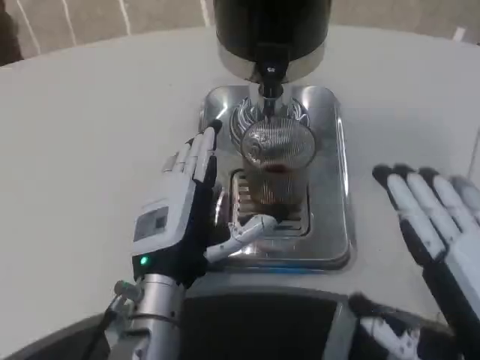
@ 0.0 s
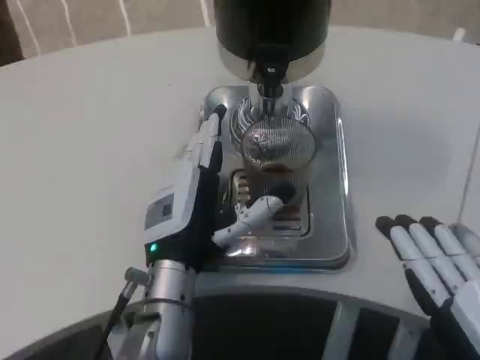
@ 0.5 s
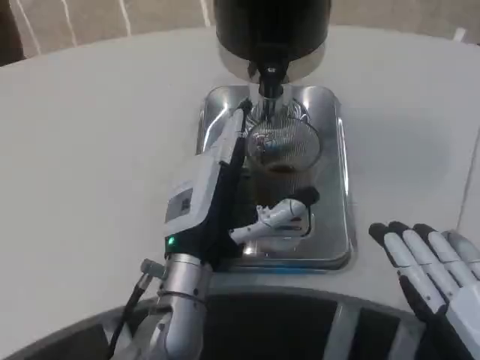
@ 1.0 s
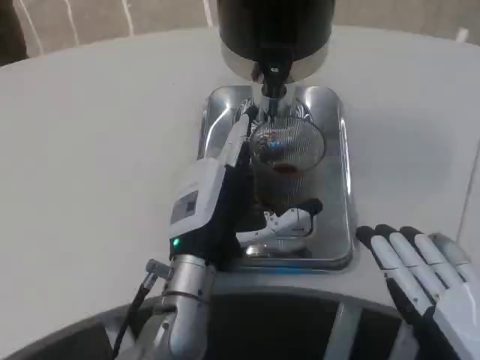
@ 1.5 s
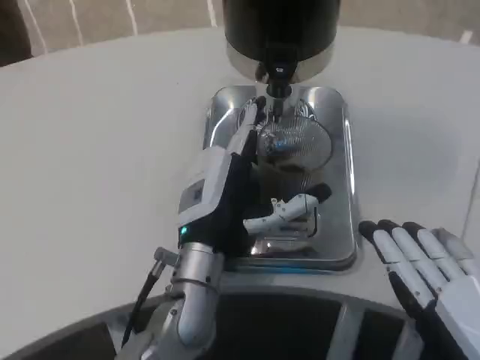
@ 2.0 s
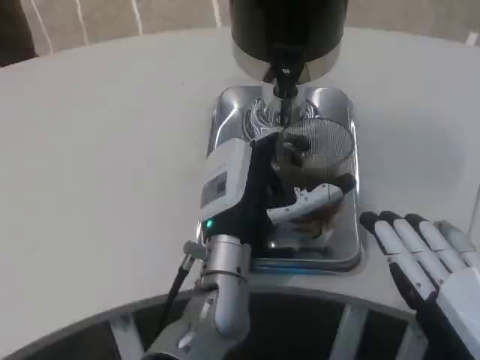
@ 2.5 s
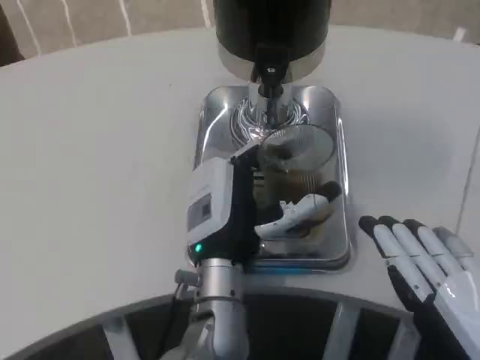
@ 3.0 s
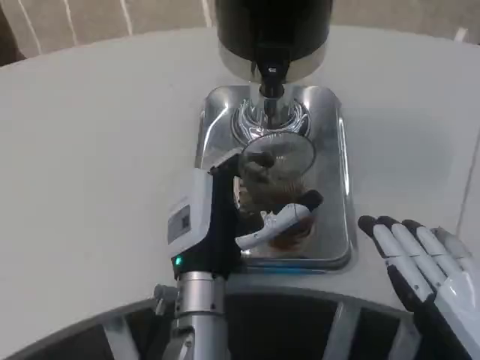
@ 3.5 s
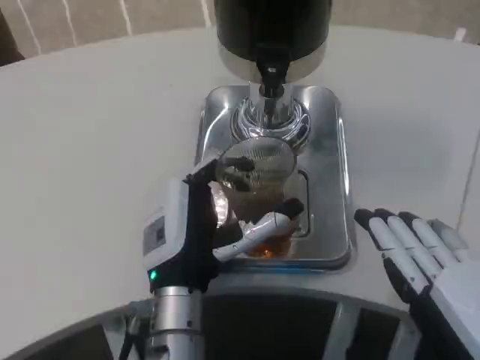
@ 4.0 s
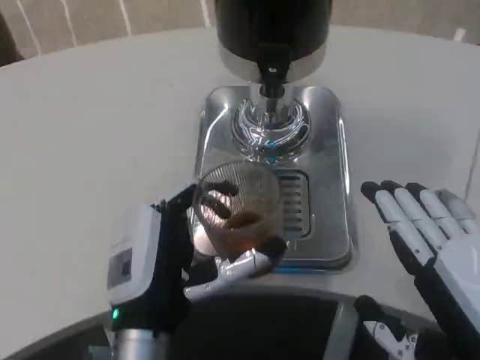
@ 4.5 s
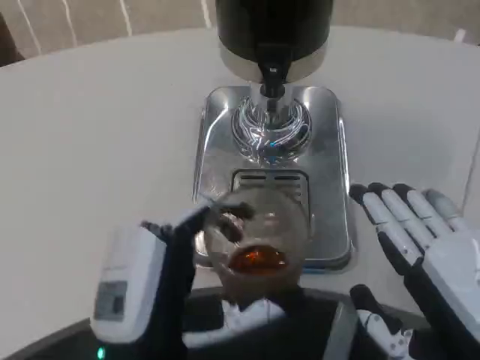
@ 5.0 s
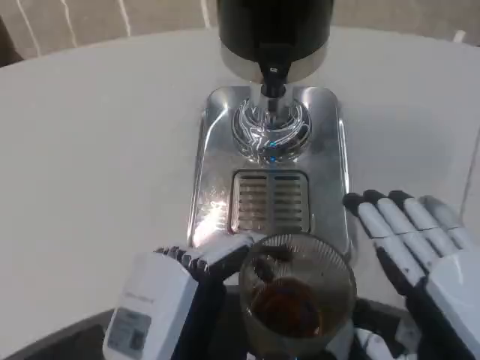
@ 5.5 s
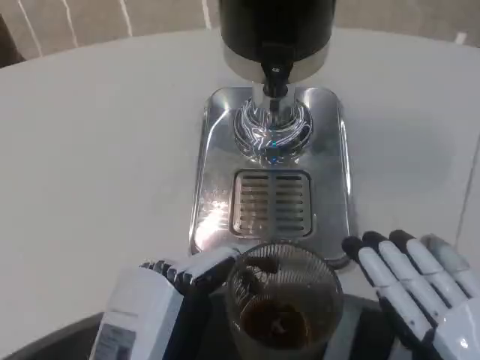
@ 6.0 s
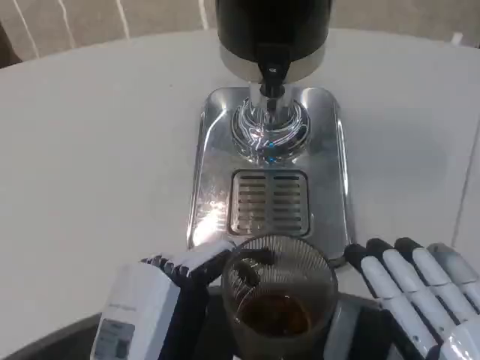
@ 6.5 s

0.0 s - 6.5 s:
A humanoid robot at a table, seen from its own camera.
Task of the whole recording: Grasp the cup under the faucet to collect the drink, then remove the cup.
2.0 s - 4.5 s: The left hand shifts roughly 10 cm backward.
4.5 s - 6.5 s: Both hands move backward, approximately 5 cm.

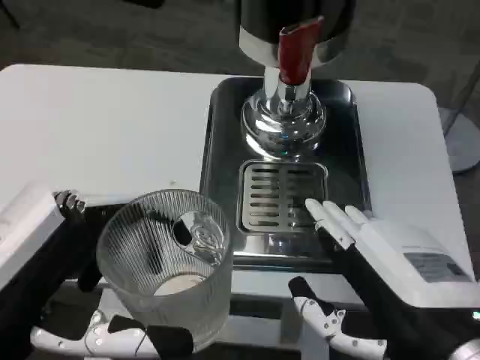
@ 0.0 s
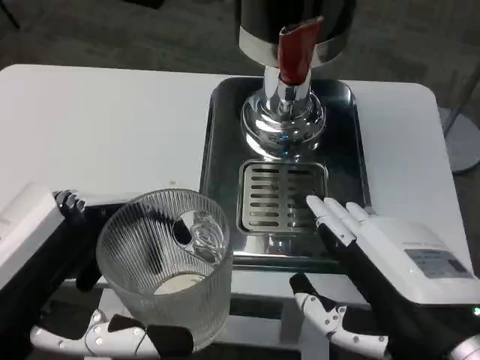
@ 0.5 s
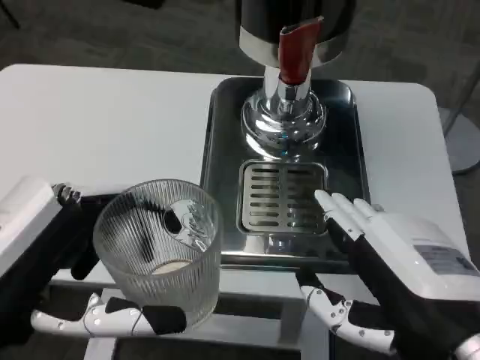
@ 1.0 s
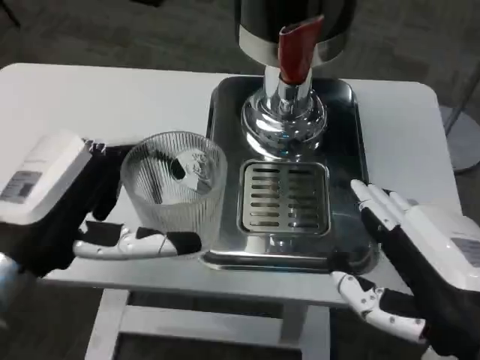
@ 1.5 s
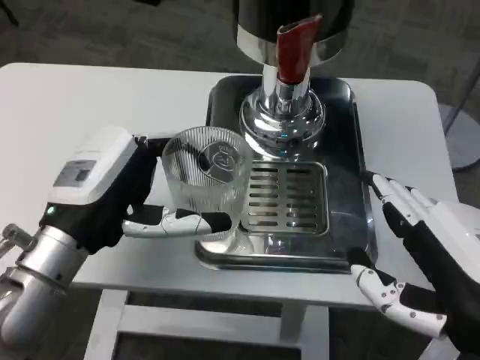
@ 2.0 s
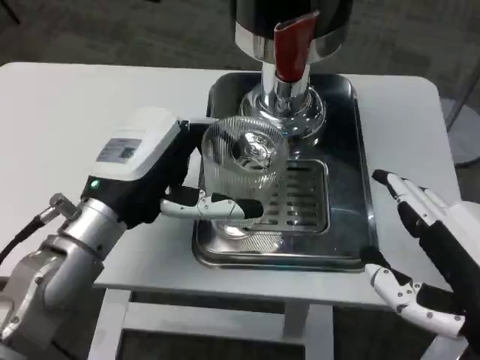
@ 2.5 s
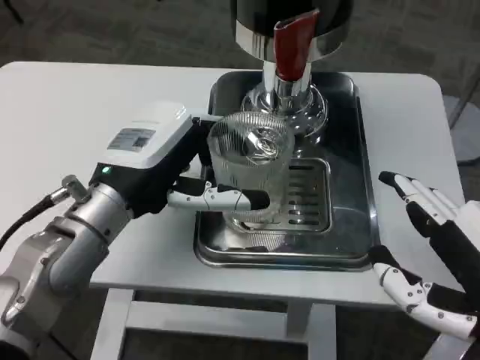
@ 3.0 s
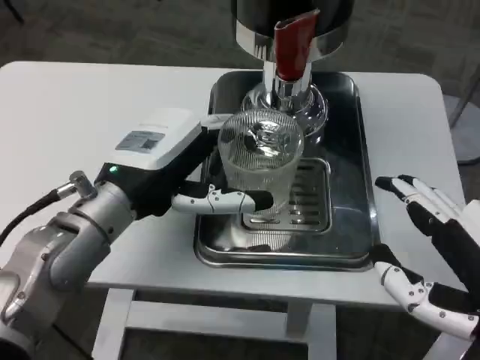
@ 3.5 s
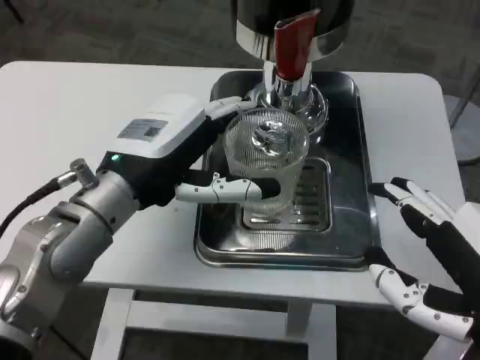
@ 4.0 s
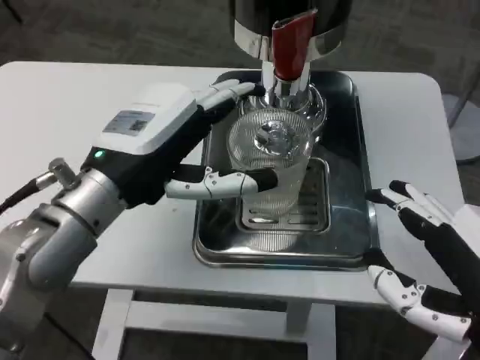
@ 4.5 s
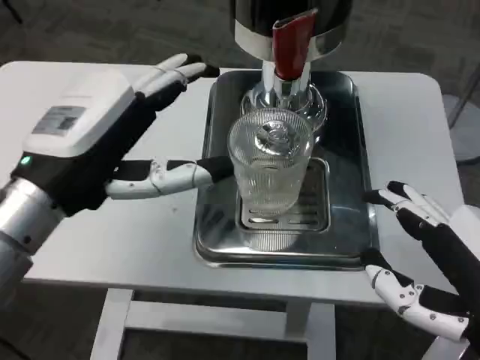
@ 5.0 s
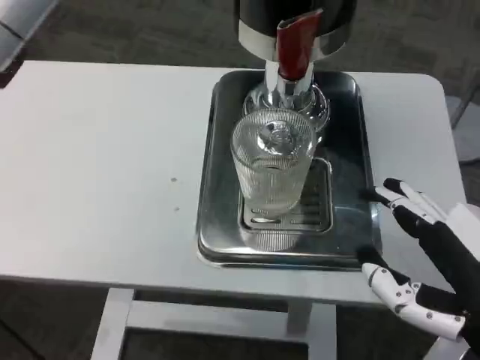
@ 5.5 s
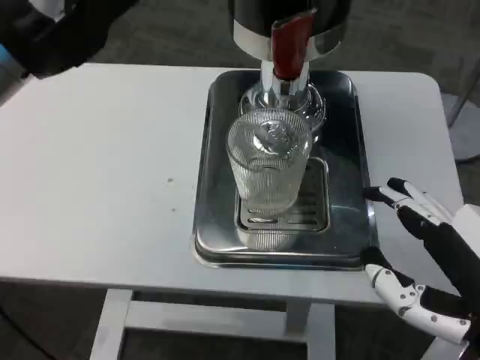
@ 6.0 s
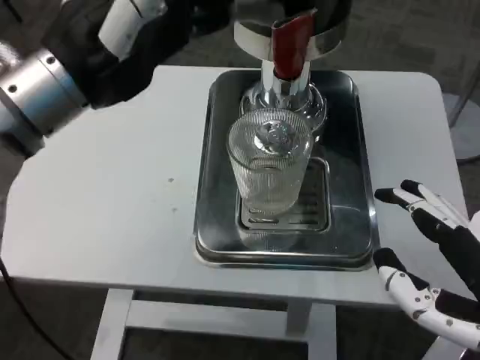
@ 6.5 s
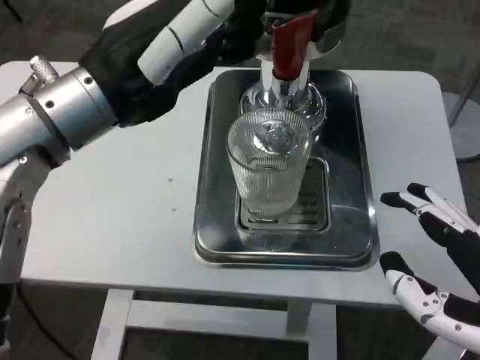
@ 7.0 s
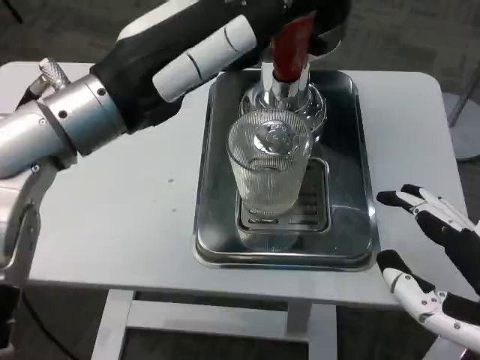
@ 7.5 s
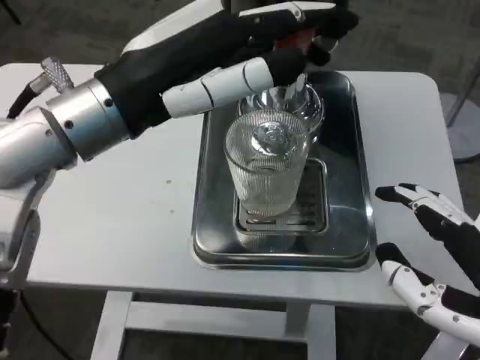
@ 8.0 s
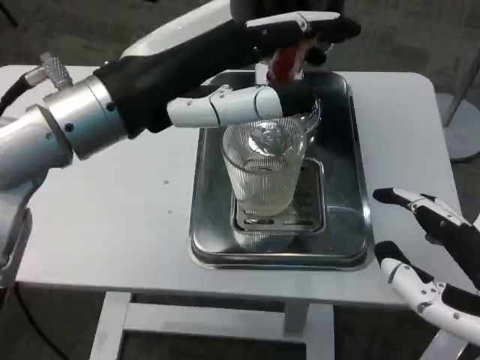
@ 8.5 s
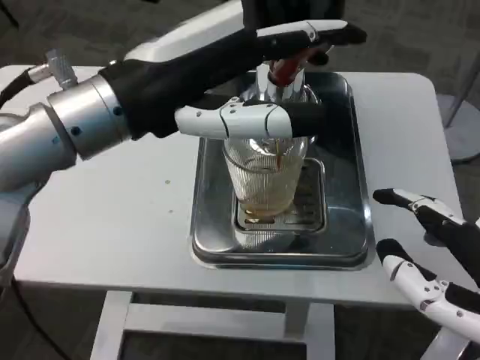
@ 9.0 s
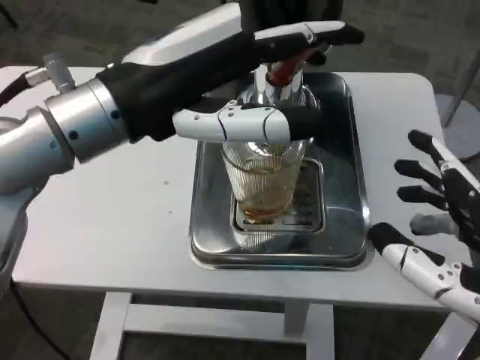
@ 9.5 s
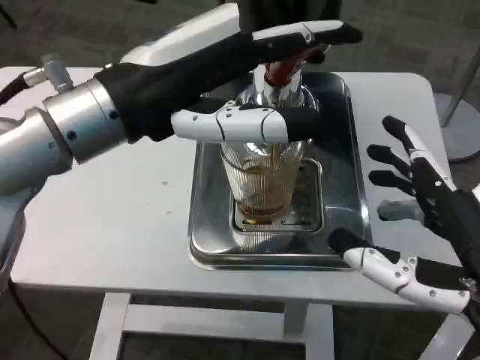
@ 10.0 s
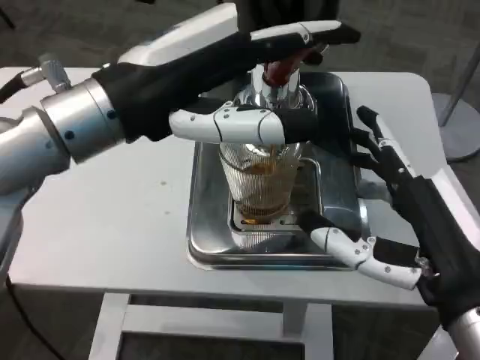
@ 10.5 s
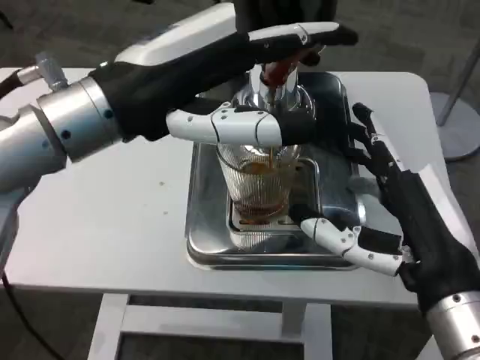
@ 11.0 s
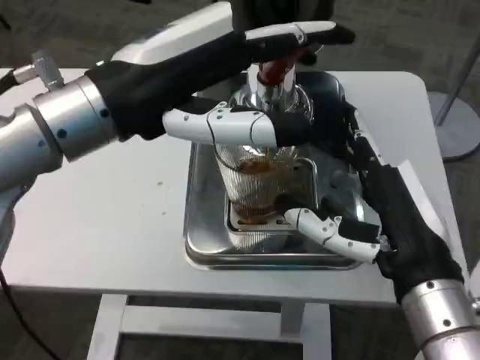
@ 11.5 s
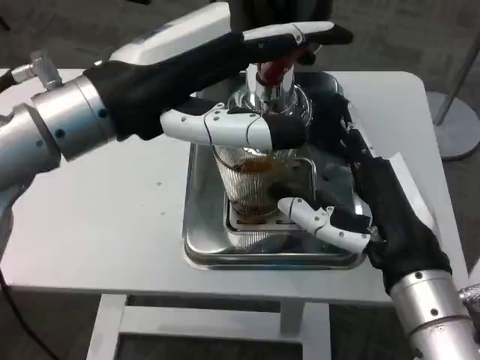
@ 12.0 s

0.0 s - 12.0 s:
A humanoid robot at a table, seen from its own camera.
Task of the whole recording: Grasp the cup under the faucet to collect the drink, then remove the cup.
0.0 s - 2.0 s: The left hand moves forward, some 10 cm.
2.0 s - 4.0 s: The left hand changes place by approximately 5 cm.
4.0 s - 6.0 s: The left hand shifts some 15 cm upward.
6.0 s - 8.0 s: The left hand moves about 5 cm.
10.0 s - 12.0 s: The right hand goes about 10 cm forward and to the left.

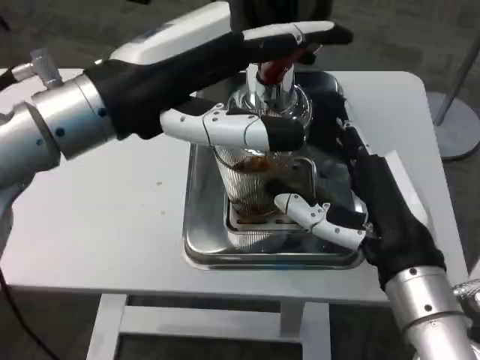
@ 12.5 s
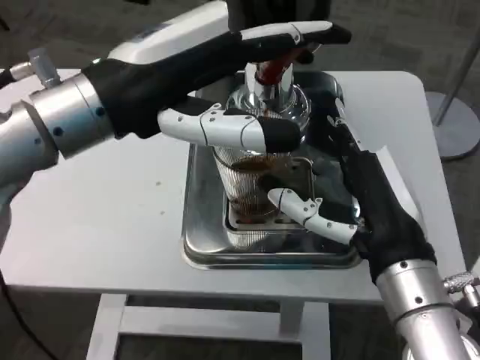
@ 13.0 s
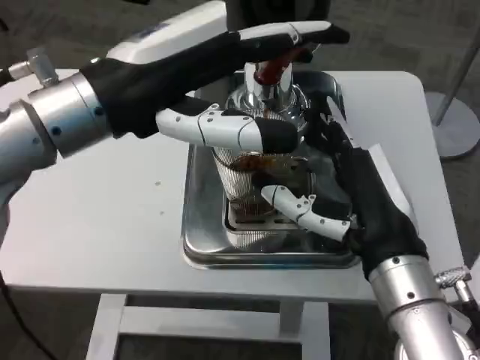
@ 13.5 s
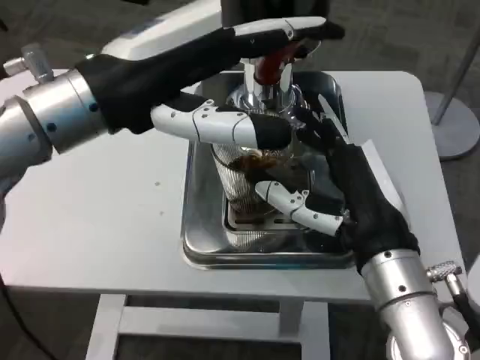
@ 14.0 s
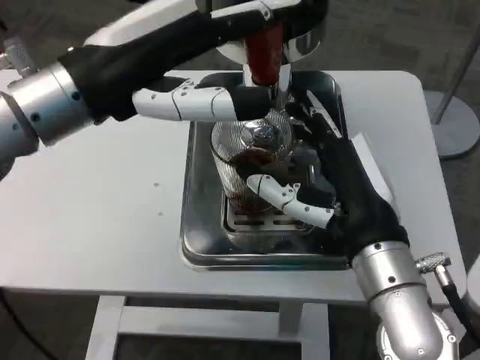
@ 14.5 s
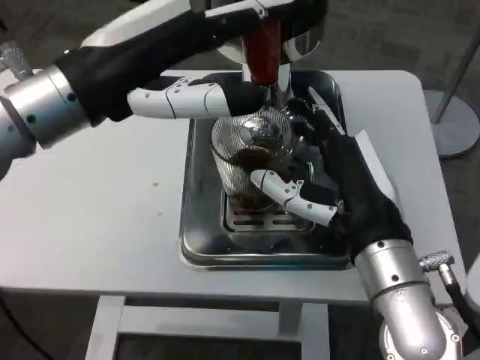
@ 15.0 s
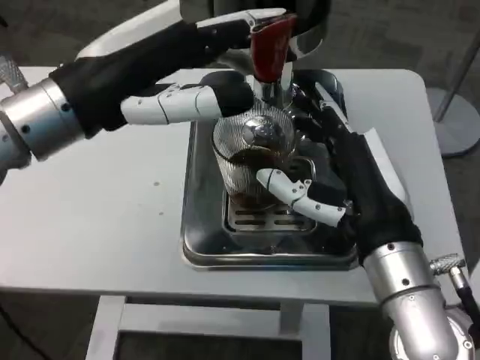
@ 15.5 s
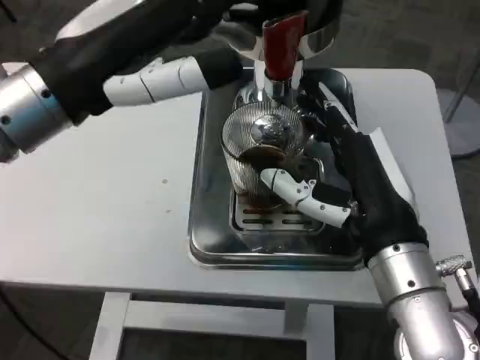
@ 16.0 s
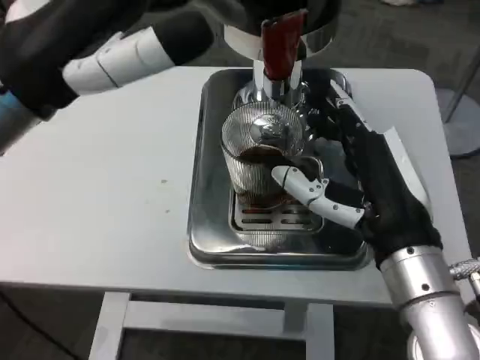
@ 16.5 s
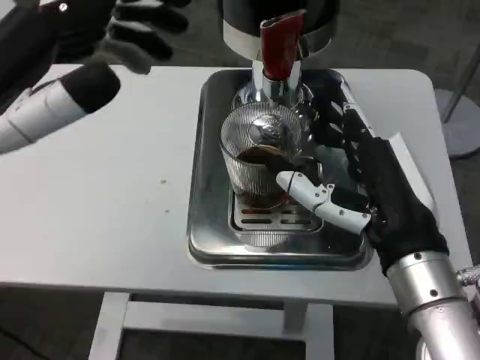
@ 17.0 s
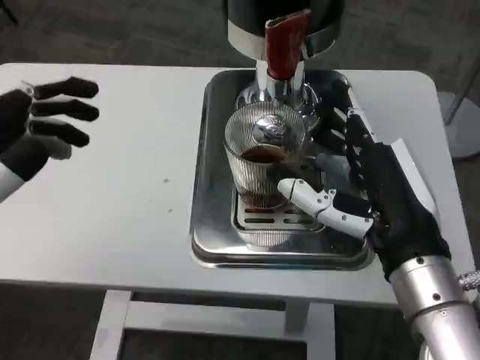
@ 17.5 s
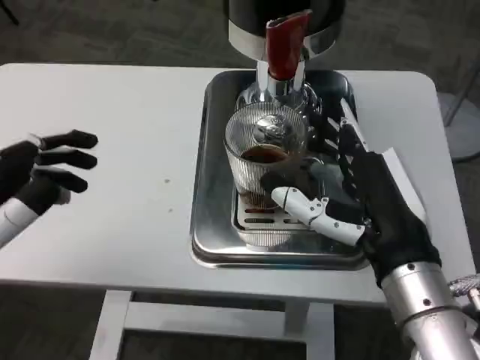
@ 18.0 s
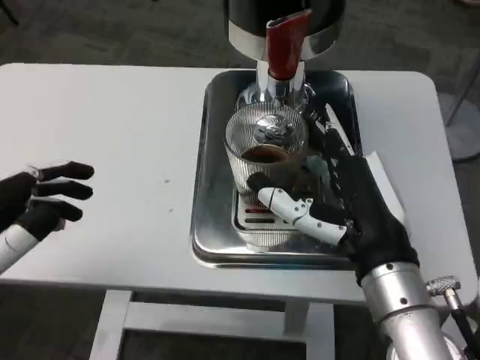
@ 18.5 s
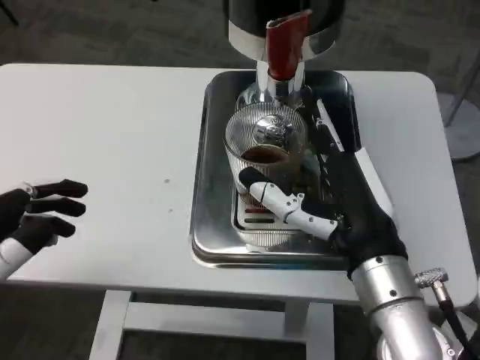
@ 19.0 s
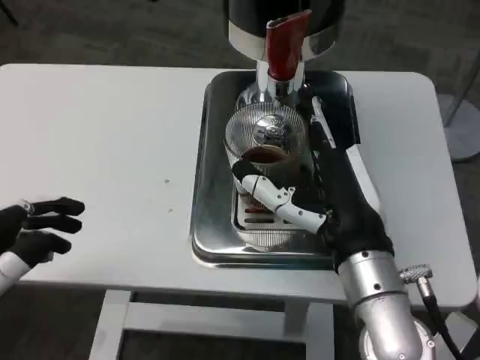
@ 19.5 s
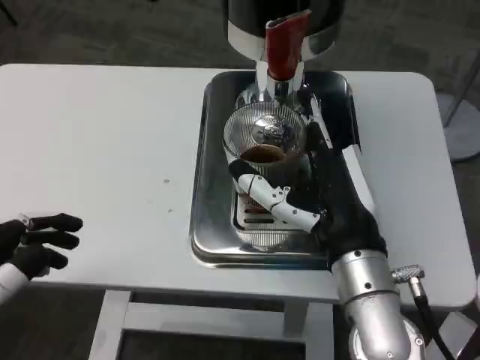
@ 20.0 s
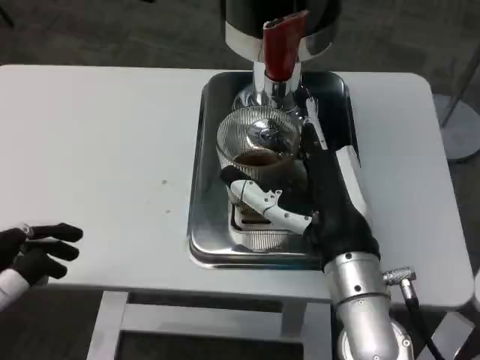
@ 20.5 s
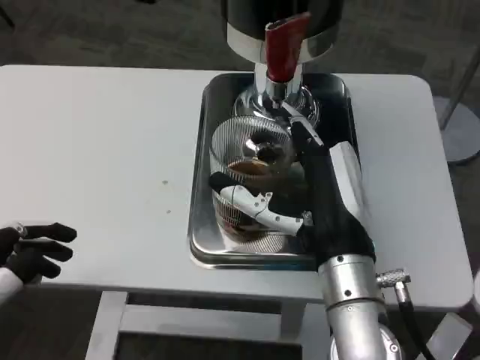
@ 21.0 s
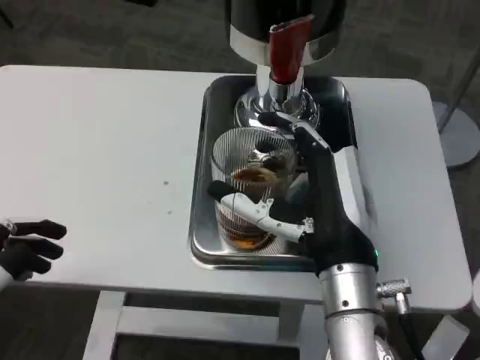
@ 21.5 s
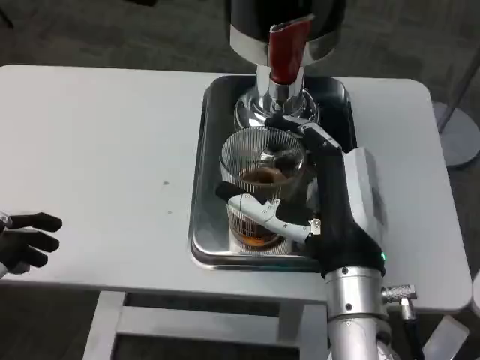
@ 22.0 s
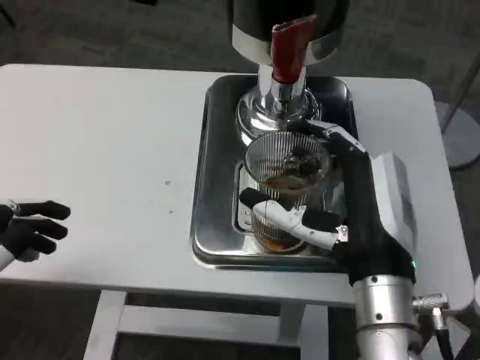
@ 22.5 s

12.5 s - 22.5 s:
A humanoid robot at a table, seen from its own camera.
Task of the whole recording: Grasp the cup under the faucet to collect the drink, then remove the cup.
14.5 s - 16.5 s: The left hand travels backward by approximately 5 cm.
16.5 s - 18.5 s: The left hand heads downward, backward and to the left, covering some 15 cm.
